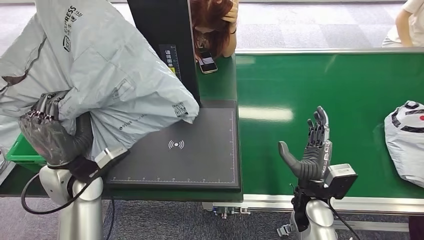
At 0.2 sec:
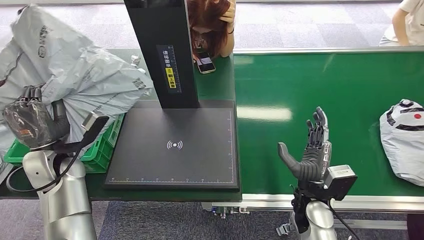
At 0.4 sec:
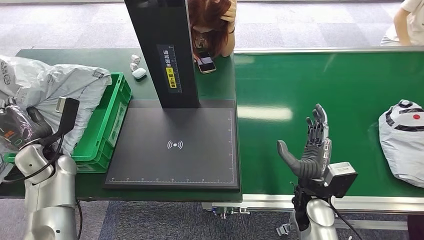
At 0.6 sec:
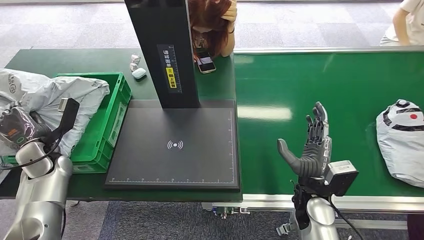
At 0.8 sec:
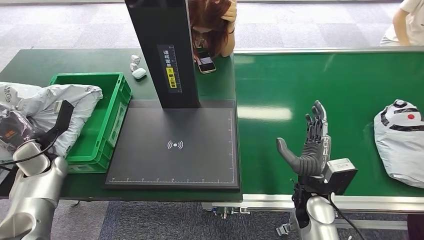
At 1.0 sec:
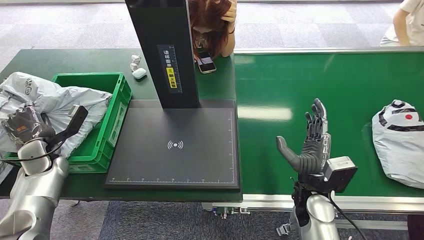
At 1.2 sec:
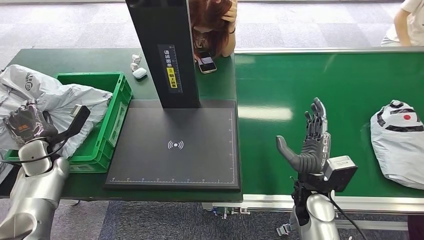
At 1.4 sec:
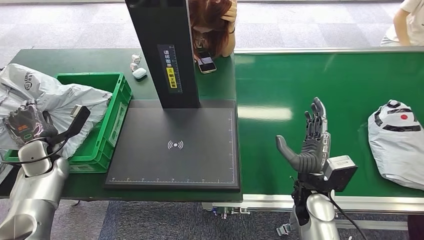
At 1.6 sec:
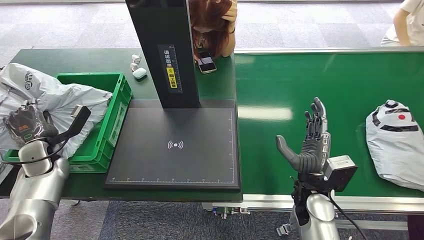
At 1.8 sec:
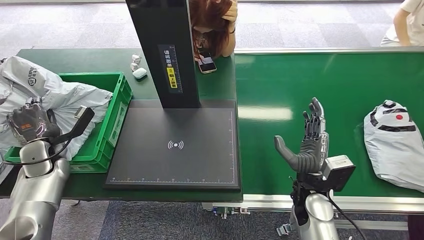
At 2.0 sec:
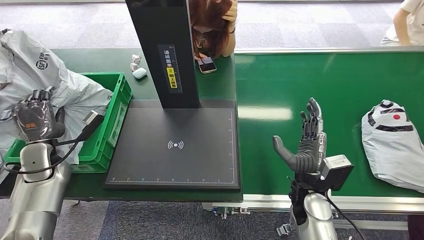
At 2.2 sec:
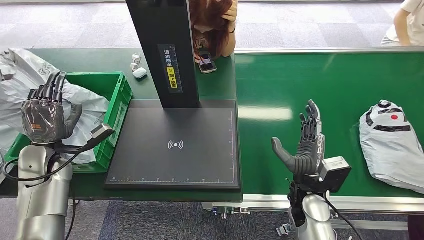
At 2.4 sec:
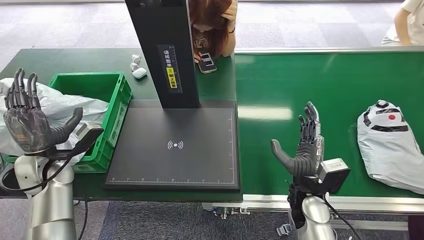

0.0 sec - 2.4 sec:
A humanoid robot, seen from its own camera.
Step, 0.2 sec - 2.2 sec: Place the package into the parcel locker.
1.2 sec - 2.4 sec: The left hand is displaced to the right by about 5 cm.
